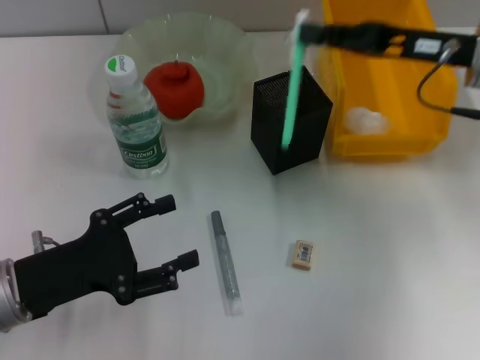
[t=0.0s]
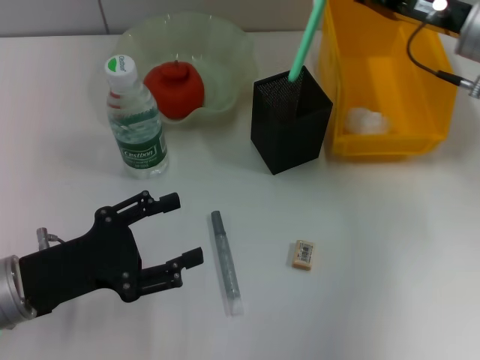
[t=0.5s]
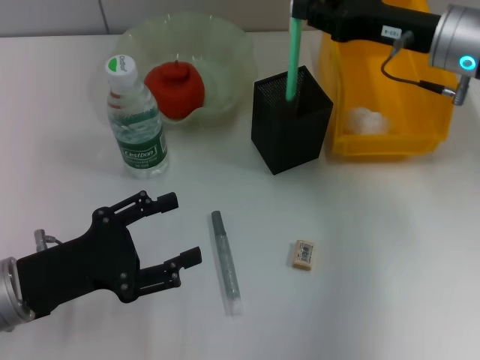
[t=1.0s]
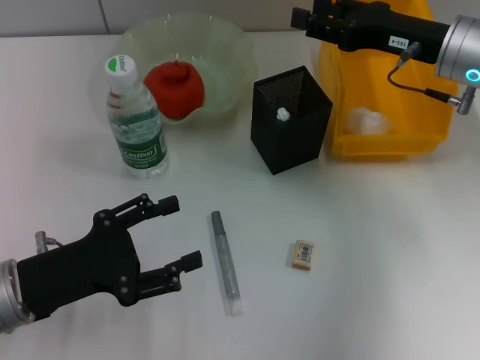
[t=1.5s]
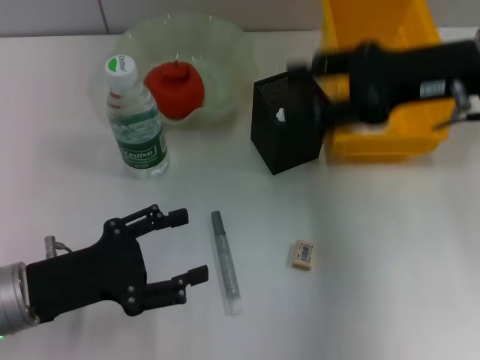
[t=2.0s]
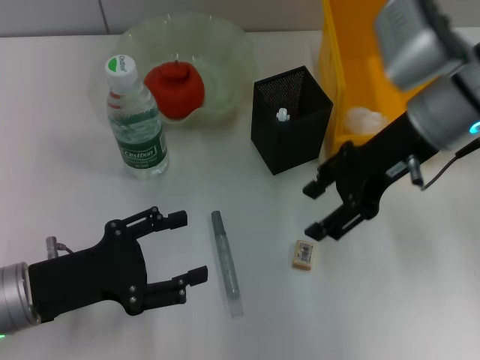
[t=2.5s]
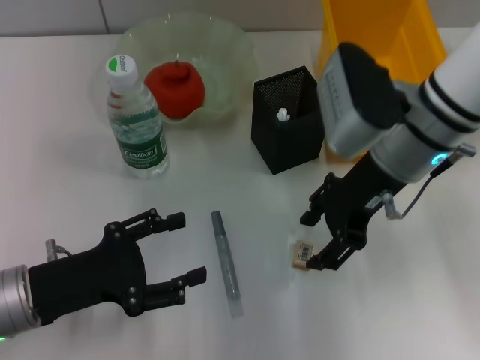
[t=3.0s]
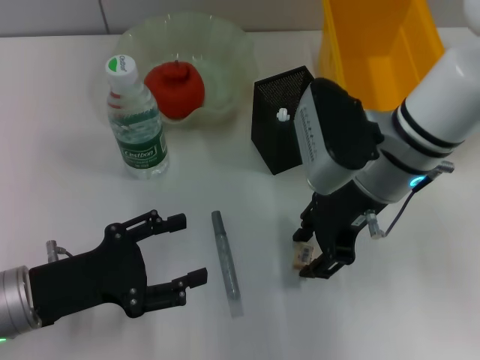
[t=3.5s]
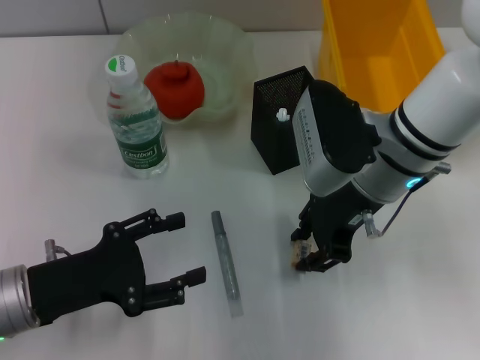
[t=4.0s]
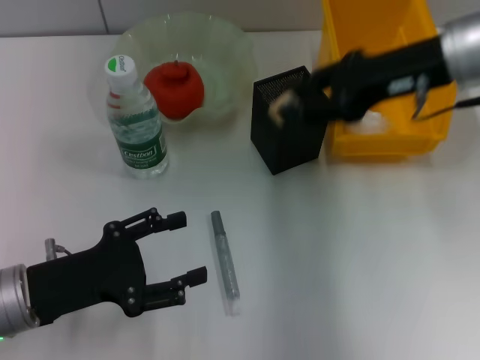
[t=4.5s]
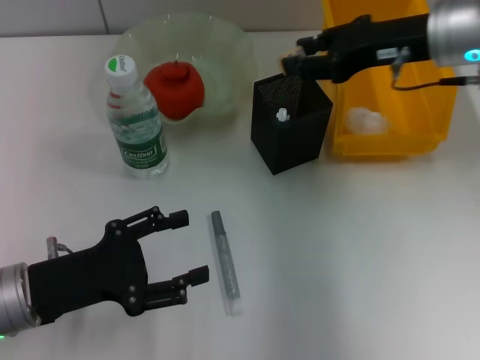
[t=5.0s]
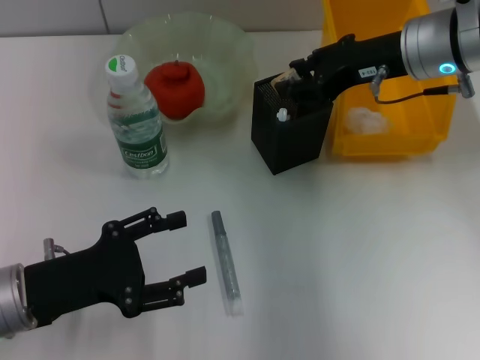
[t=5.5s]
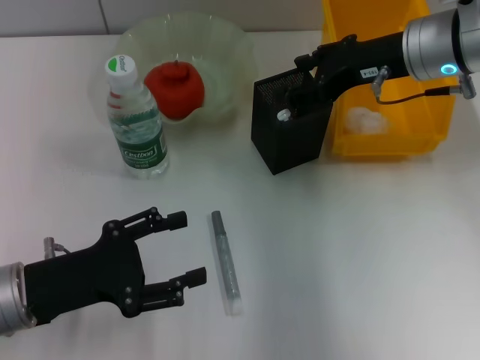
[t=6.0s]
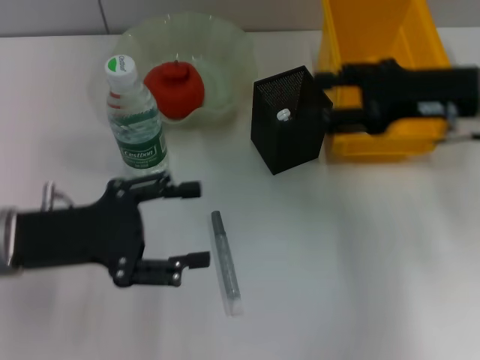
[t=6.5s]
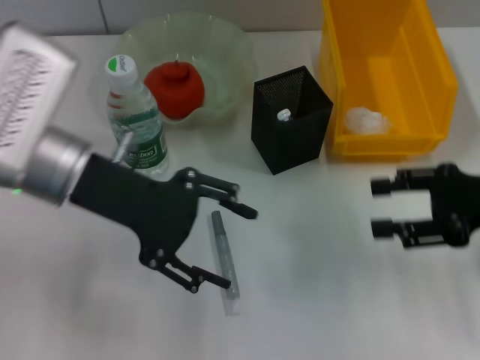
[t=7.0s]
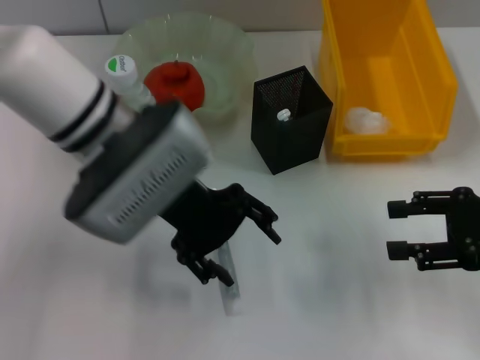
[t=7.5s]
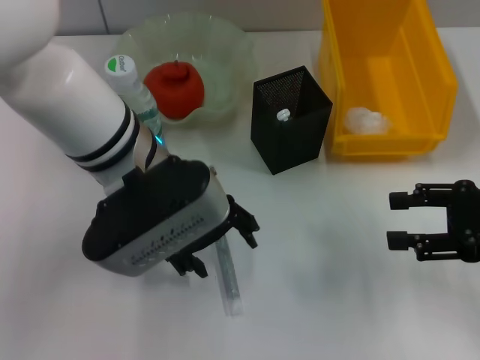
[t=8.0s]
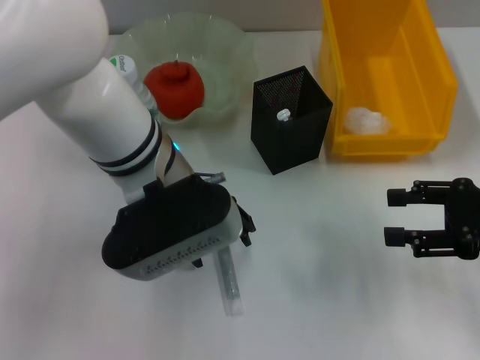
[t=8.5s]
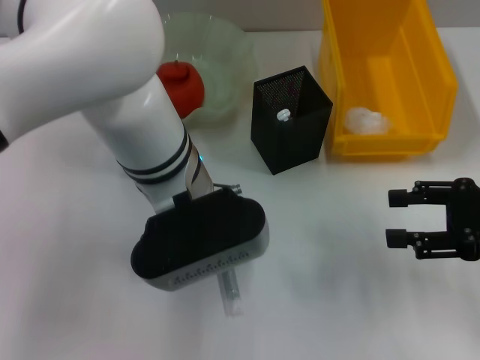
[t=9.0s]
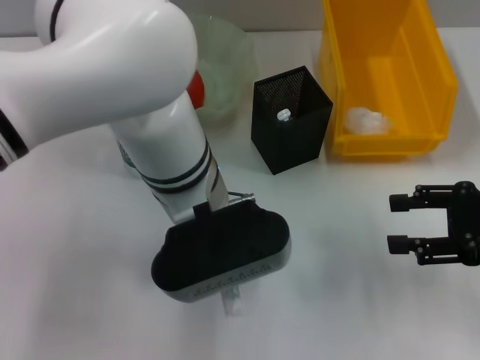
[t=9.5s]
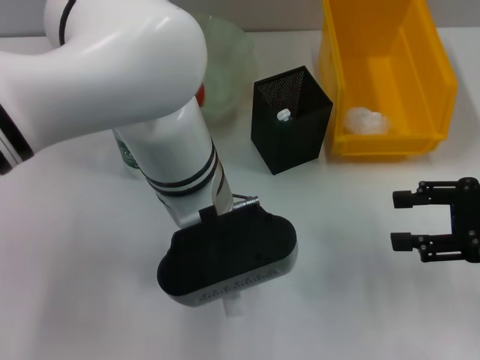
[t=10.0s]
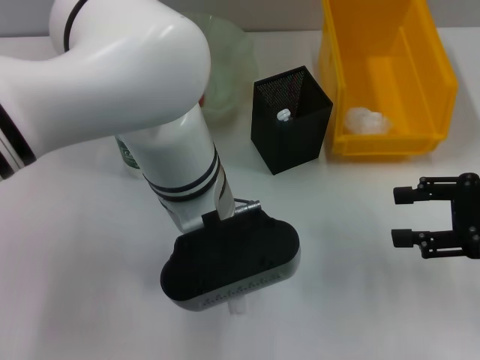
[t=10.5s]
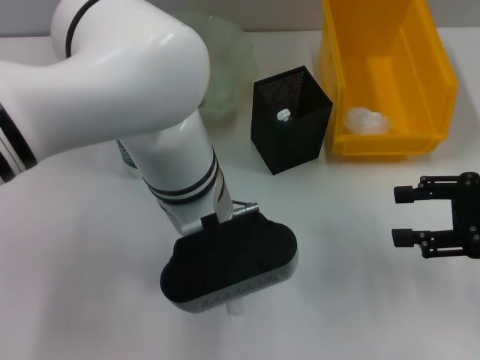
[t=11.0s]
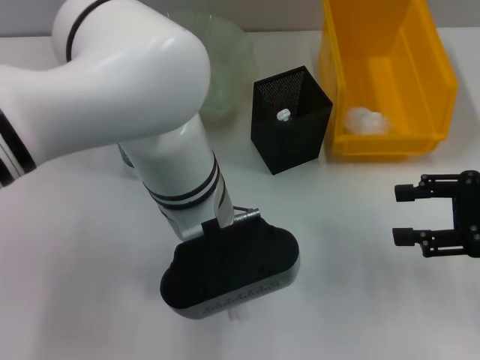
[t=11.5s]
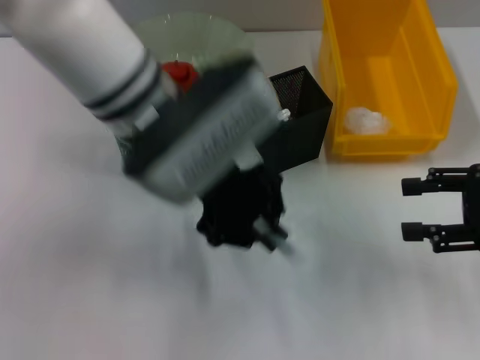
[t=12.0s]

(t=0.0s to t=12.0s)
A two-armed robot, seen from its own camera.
Step, t=2.0s - t=3.5s: Grab the eraser with the right hand.
Step, t=4.0s - t=5.5s: Put the eraser into the pen holder with the right hand.
Step, t=6.0s - t=11.0s: Grab the gray glue with the left hand.
t=0.0s - t=2.0s: The right gripper opens up.
t=2.0s - t=4.0s: The right gripper travels to the left and downward by about 10 cm, and closes its fingers.
t=4.0s - t=6.0s: The right gripper is displaced to the right and forward by some 10 cm, and opens.
t=6.0s - t=8.0s: The right gripper is displaced to the right, backward and downward by approximately 20 cm. The left gripper is displaced to the right, upward and forward by some 20 cm.
t=8.0s - t=10.0s: The left gripper shifts some 5 cm to the right, and closes up.
t=10.0s - t=12.0s: The left gripper heads upward, covering approximately 5 cm, and closes up.

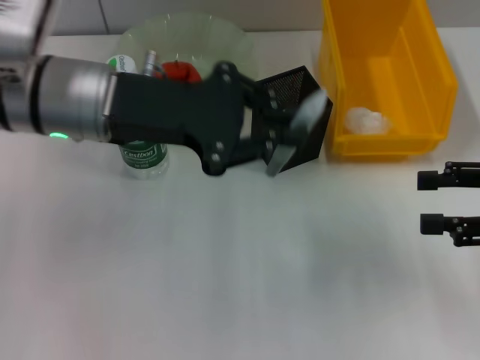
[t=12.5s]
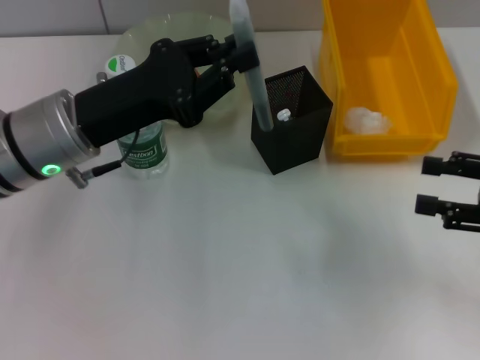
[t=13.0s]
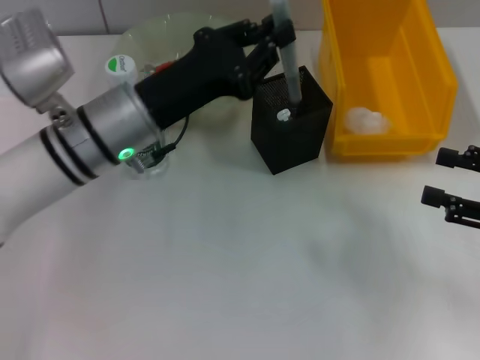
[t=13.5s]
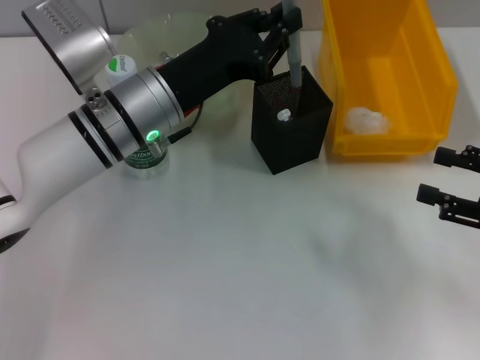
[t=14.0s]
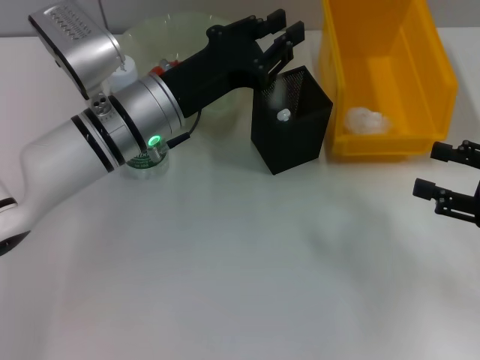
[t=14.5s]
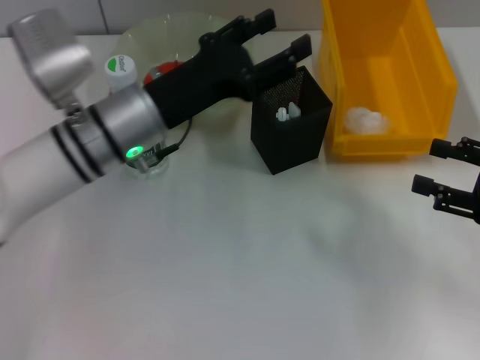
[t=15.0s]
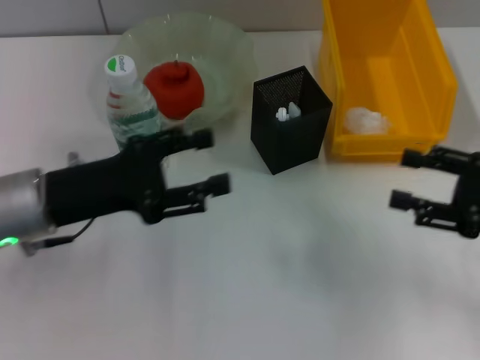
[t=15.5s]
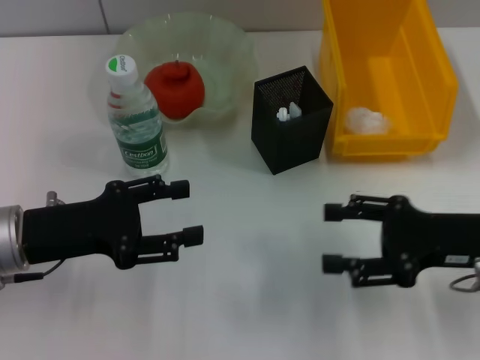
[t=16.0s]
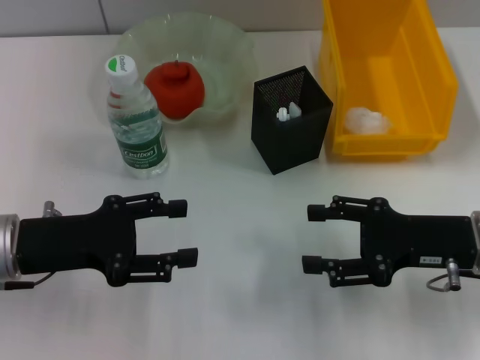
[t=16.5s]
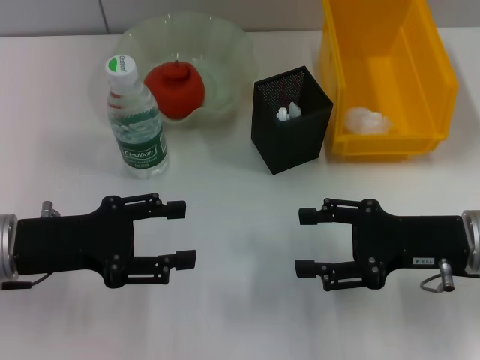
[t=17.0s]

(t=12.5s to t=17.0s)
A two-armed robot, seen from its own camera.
Step, t=12.5s - t=14.5s: Place the gray glue into the pen holder with the left hand.
t=12.5s - t=14.5s: The left gripper travels downward by some 10 cm.
t=14.5s - t=17.0s: The right gripper is displaced to the left by some 10 cm. The left gripper goes some 15 cm to the left and backward, and opens up.
